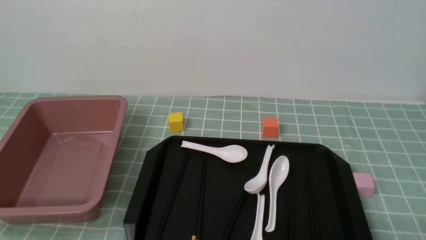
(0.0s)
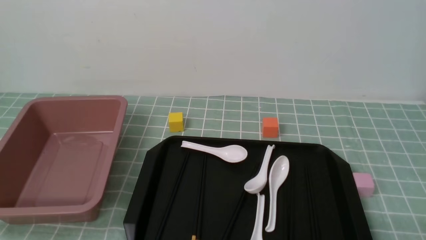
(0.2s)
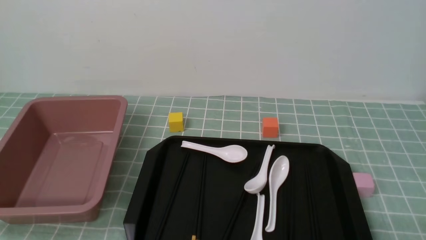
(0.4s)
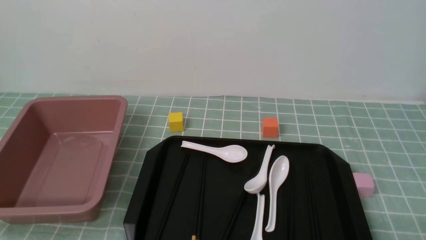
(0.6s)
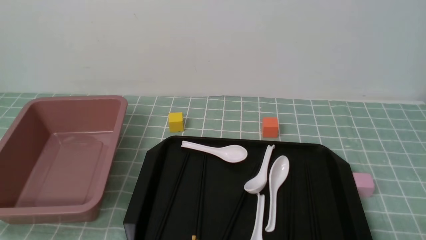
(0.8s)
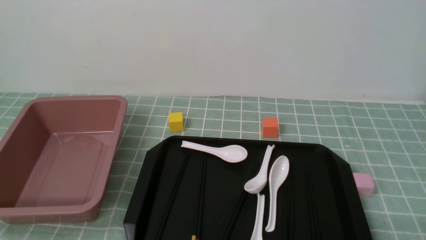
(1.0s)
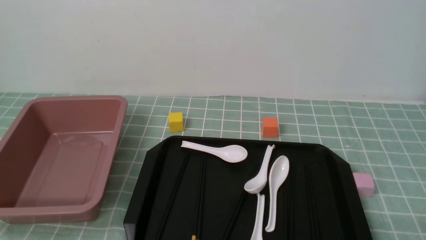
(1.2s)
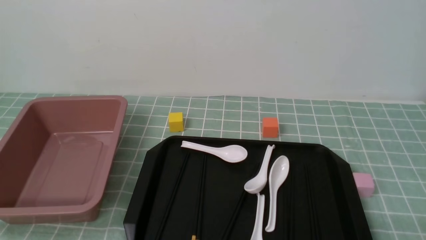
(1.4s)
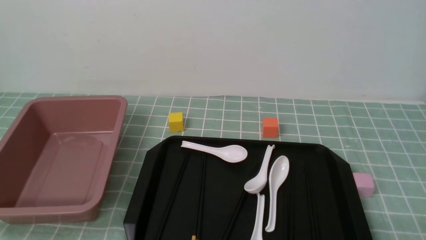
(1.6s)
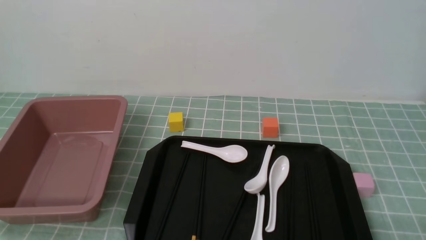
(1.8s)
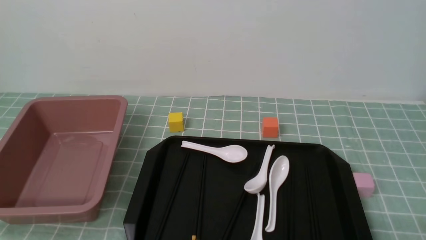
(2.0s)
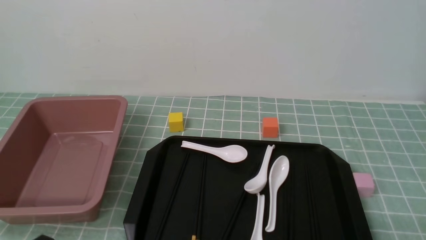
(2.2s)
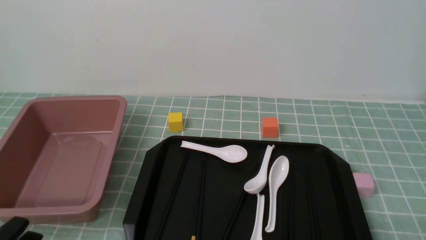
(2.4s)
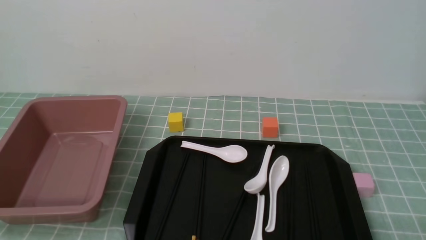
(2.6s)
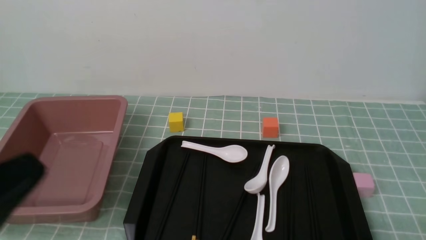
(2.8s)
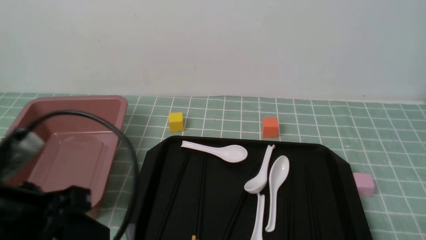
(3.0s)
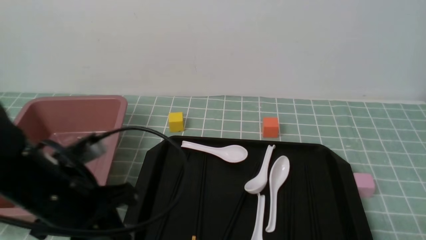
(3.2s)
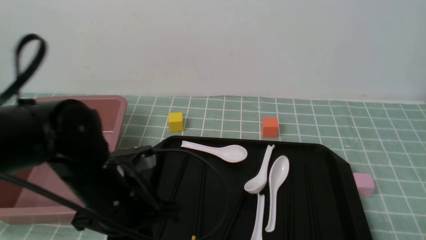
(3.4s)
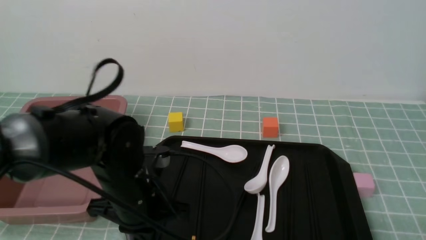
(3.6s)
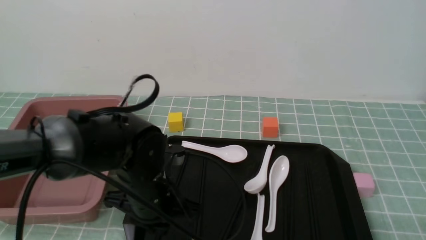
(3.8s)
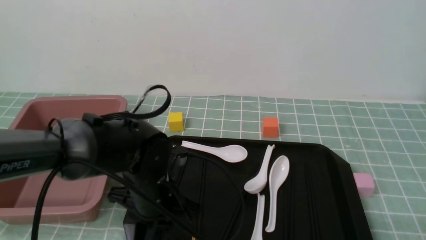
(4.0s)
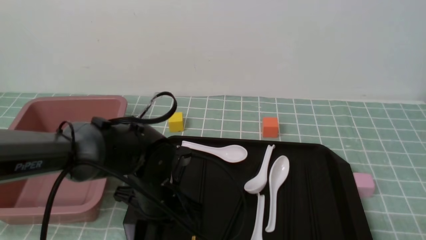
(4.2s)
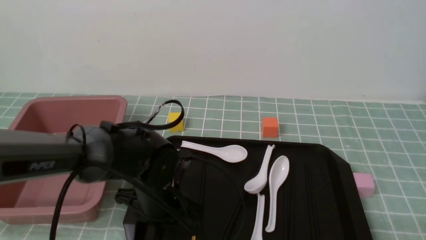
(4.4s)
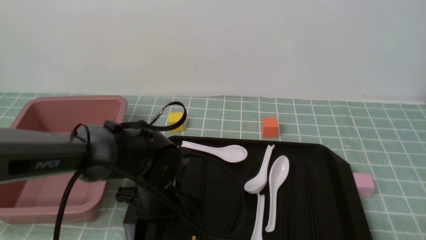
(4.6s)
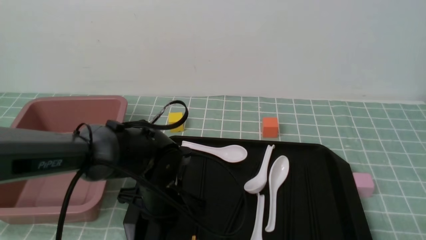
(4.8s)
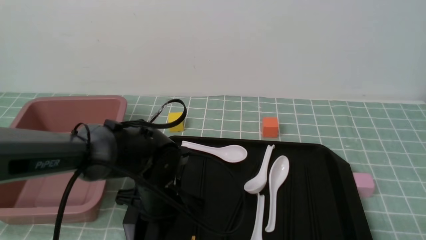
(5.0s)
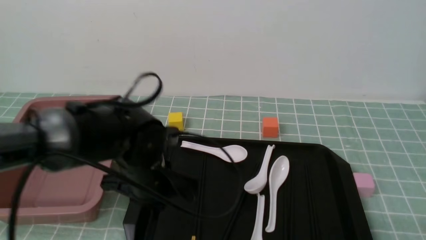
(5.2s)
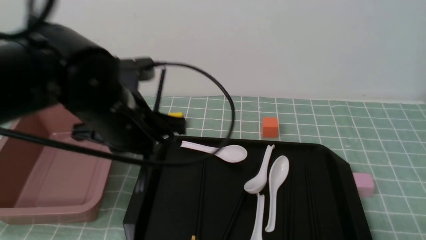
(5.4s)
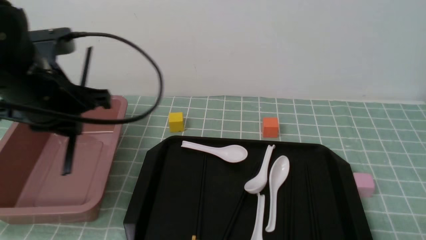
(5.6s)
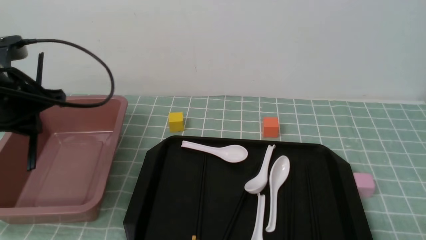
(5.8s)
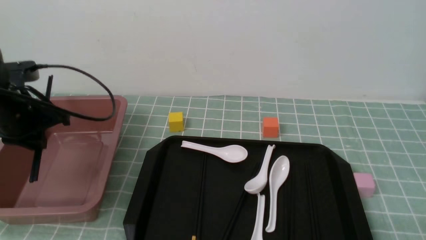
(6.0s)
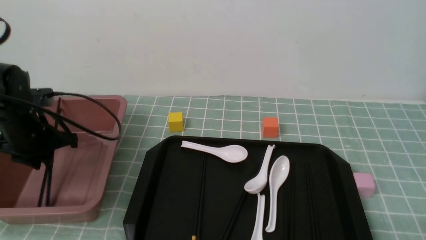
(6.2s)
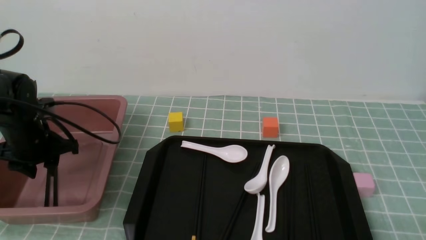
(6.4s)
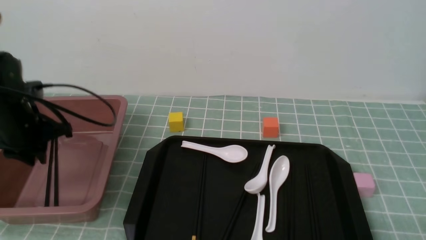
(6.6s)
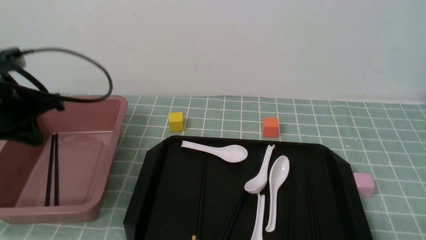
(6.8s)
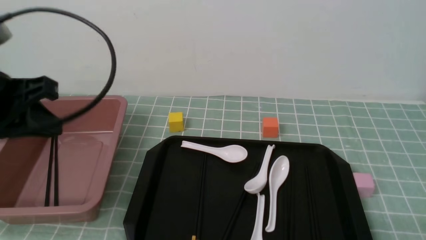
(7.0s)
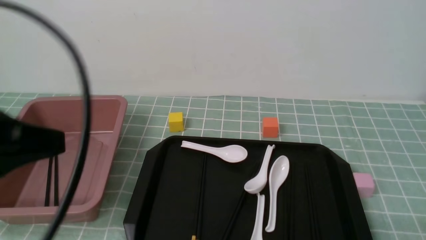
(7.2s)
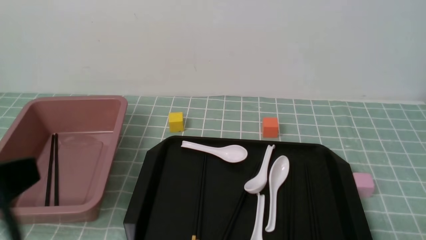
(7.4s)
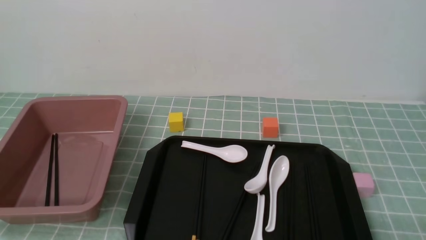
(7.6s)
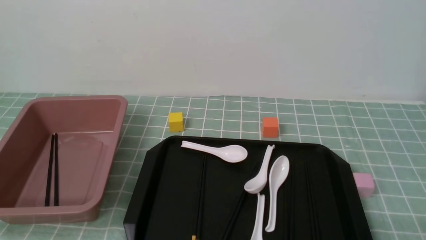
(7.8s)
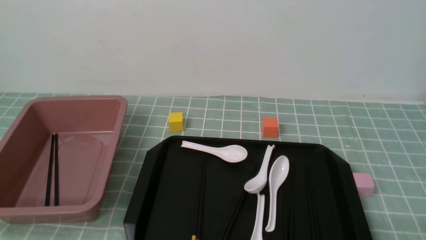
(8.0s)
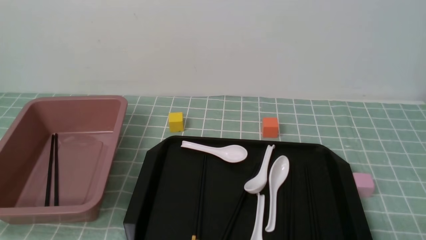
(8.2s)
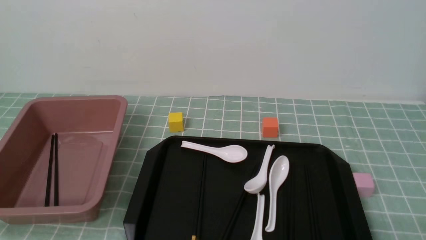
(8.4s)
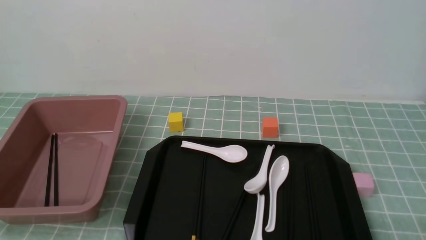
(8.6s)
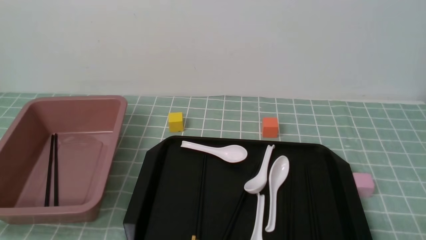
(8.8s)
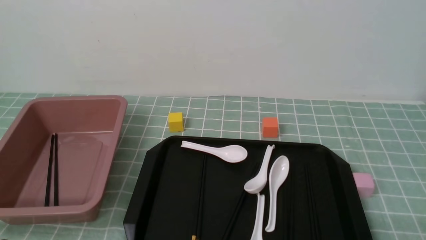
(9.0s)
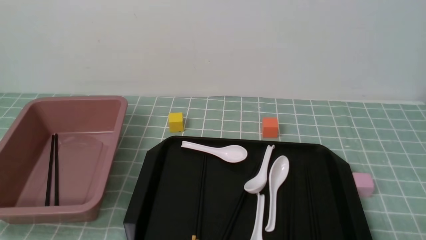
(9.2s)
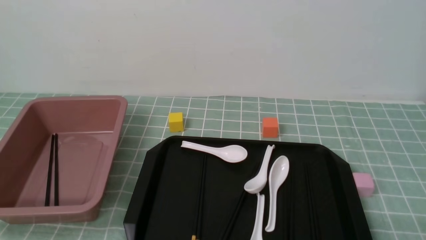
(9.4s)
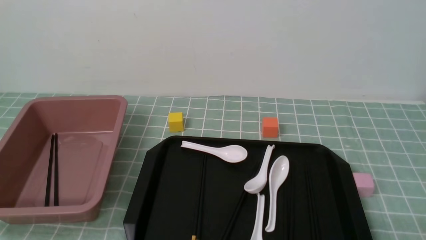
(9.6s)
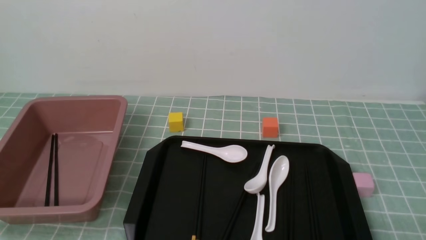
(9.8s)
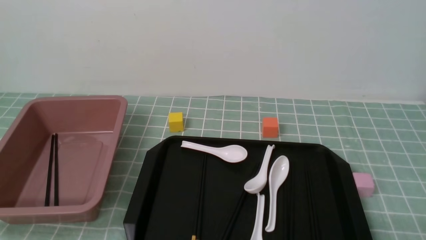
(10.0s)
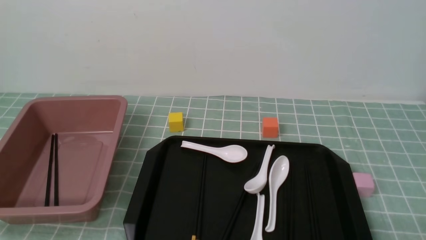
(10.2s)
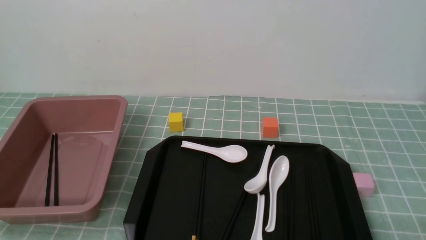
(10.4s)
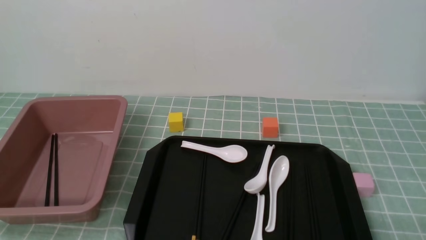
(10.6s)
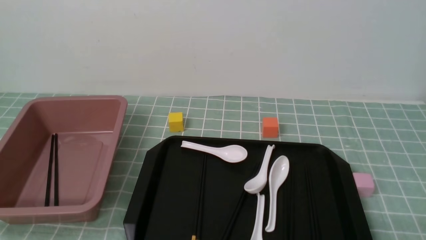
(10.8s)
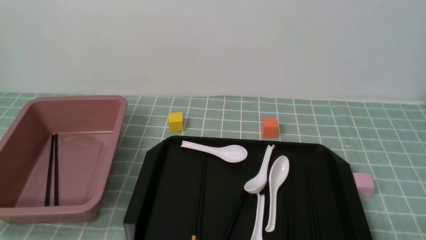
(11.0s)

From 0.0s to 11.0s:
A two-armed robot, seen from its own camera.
Step, from 0.0s to 5.4s: use the left arm to grab a pair of chopsticks.
Step, from 5.6s to 6.8s: use the left arm to put the chopsticks into the lunch box.
From 1.6s to 3.2s: The left gripper moves forward, upward and to the right, approximately 20 cm, and closes.
From 3.2s to 4.8s: The left gripper travels downward, forward and to the right by about 20 cm, and opens its fingers.
From 4.8s to 6.2s: The left gripper goes some 20 cm to the left.
From 6.2s to 7.8s: The left gripper travels backward by approximately 35 cm, and closes.
From 9.4s to 11.0s: Both grippers stay about where they are.

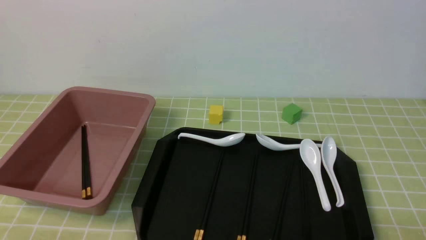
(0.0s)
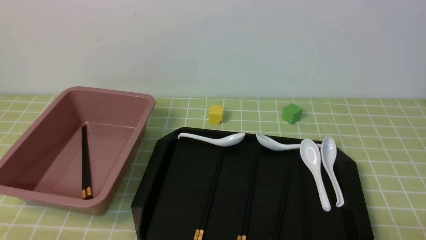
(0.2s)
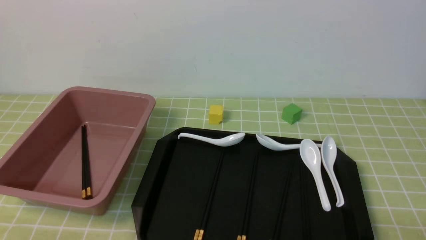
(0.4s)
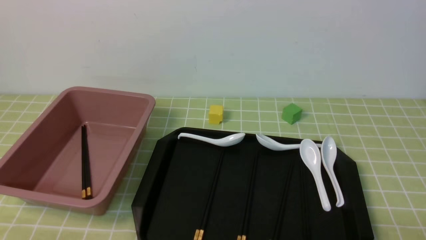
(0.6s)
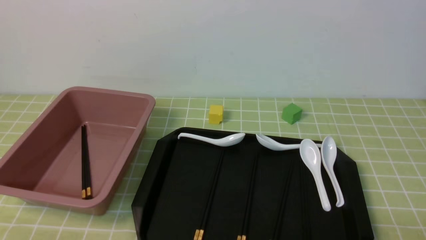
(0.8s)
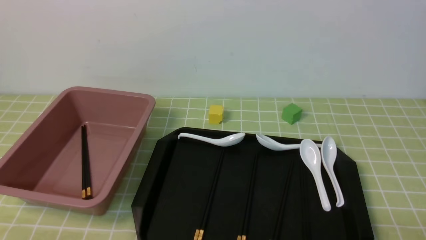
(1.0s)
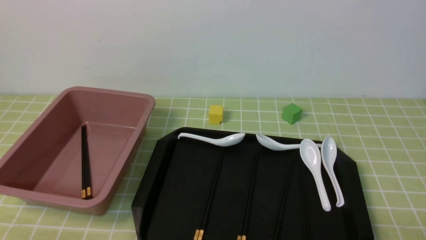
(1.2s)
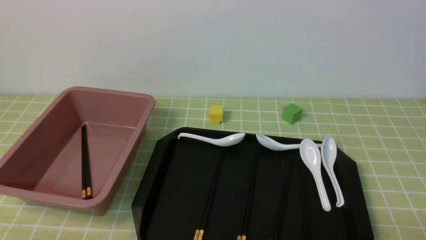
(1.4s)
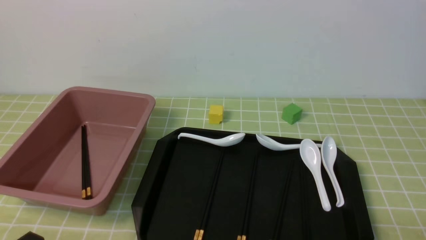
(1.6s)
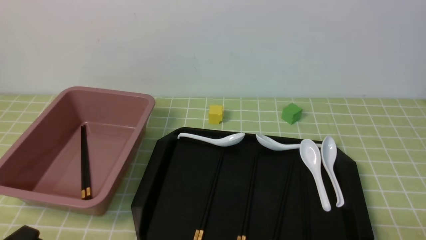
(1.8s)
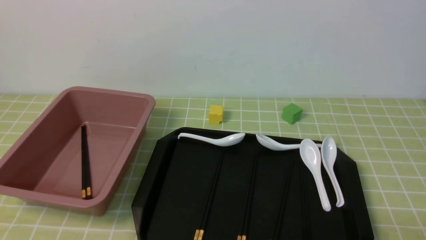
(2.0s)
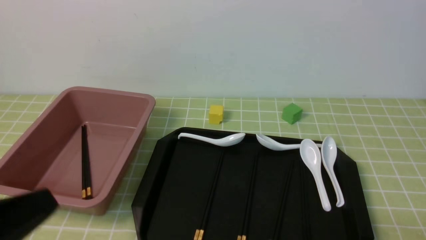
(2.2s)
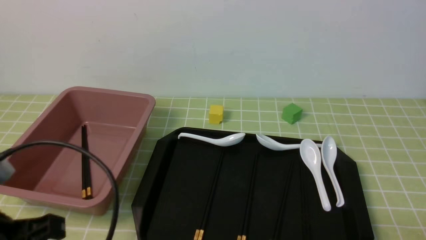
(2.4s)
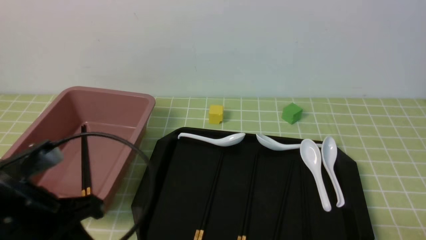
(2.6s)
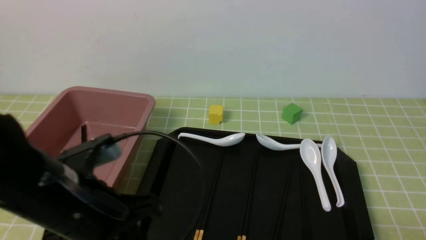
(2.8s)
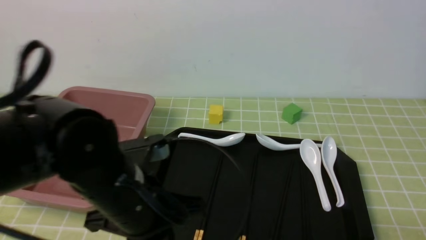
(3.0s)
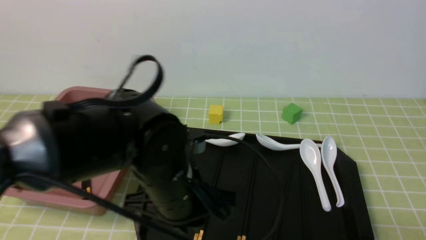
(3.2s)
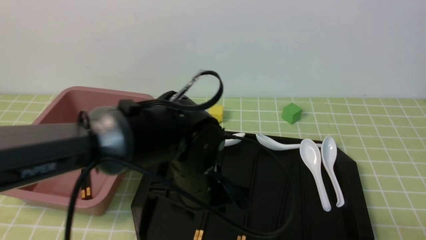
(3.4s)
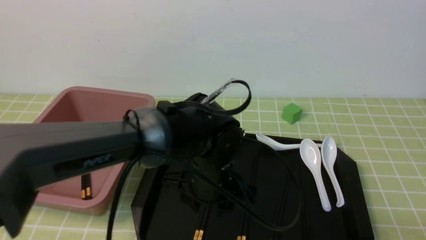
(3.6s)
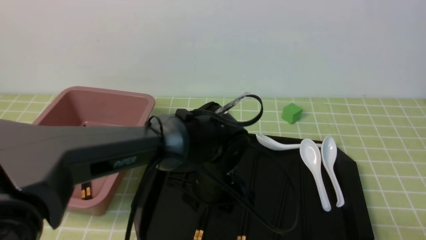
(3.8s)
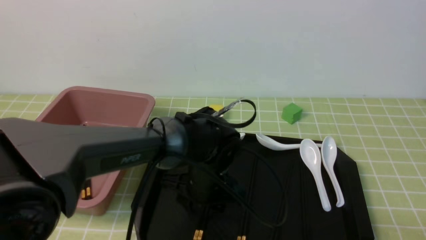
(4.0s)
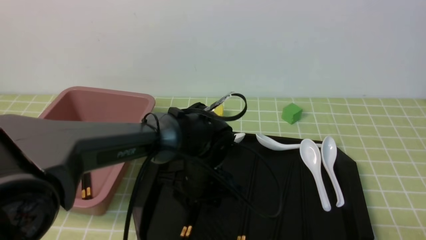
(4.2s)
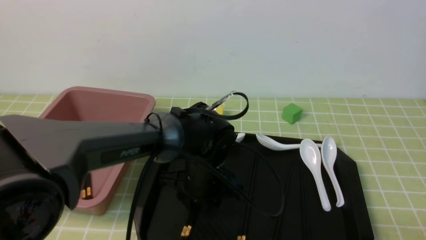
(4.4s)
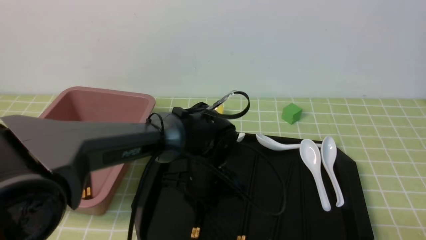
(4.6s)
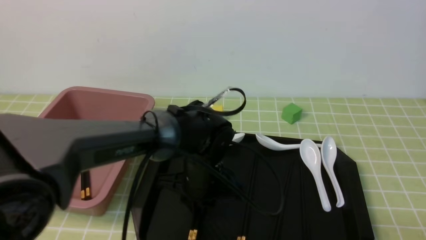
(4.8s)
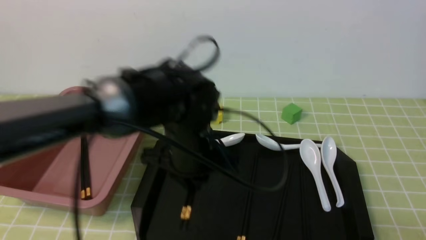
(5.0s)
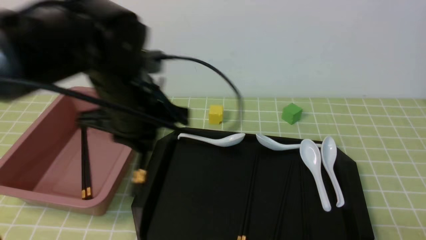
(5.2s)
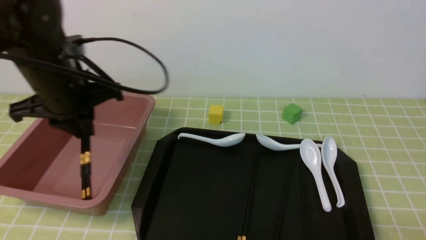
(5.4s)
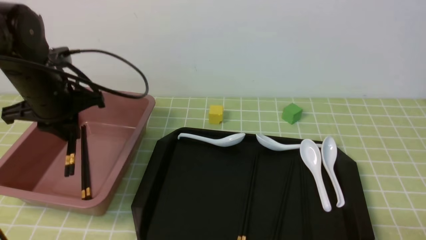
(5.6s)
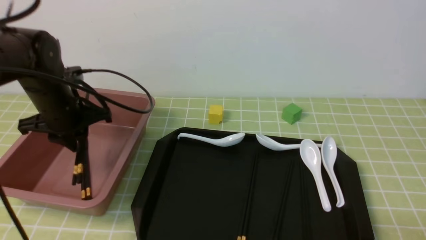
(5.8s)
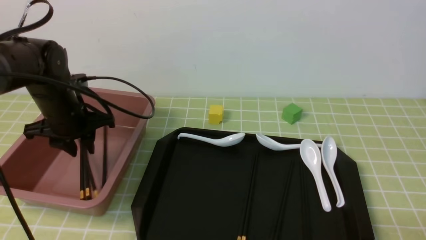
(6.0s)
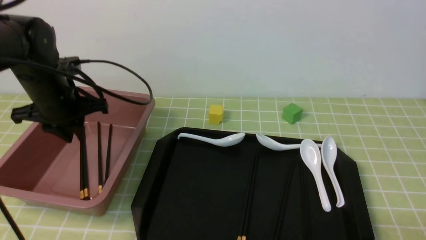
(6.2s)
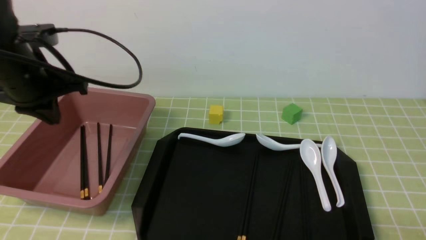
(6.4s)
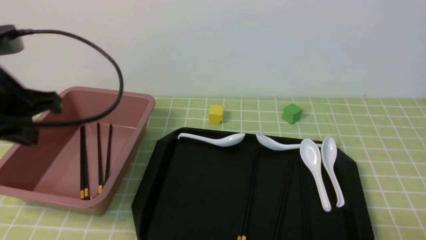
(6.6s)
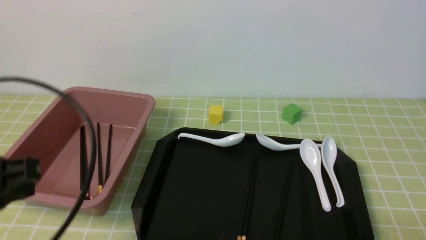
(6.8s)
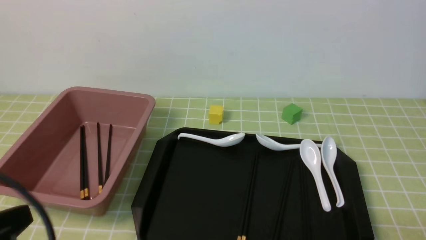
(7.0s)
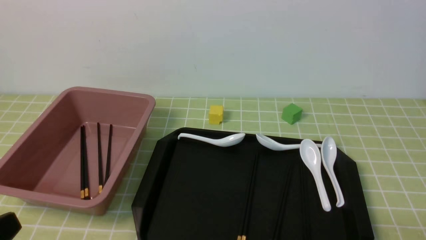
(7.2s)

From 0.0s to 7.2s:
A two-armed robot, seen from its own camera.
Step, from 0.0s to 5.0s: use the left arm to grab a pair of chopsticks.
Step, from 5.2s to 6.2s: use the left arm to put the chopsticks into the lunch box.
From 1.4s to 2.8s: The left gripper goes roughly 20 cm forward, to the right and upward, and closes.
From 2.8s to 4.4s: The left gripper is displaced to the right, forward and downward by roughly 20 cm, and opens up.
From 4.4s to 5.8s: The left gripper goes roughly 25 cm to the left and upward.
From 5.8s to 7.2s: The left gripper is displaced backward by approximately 30 cm, and closes.
